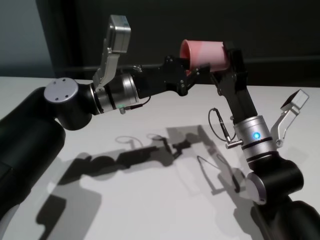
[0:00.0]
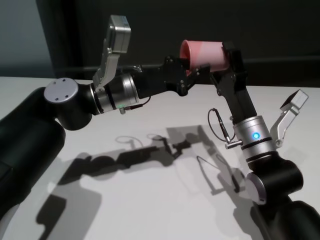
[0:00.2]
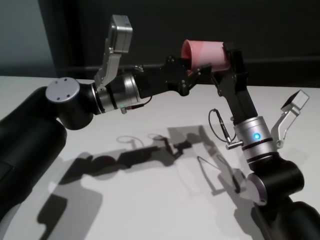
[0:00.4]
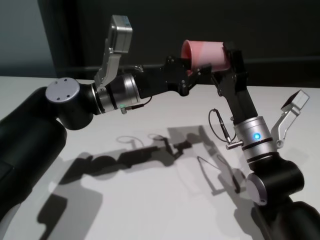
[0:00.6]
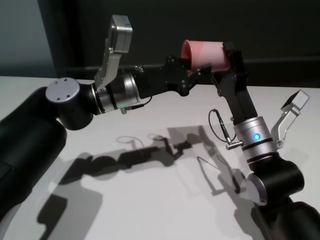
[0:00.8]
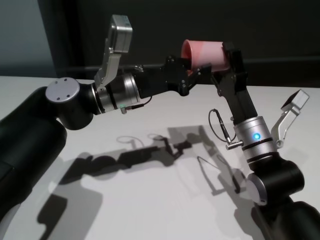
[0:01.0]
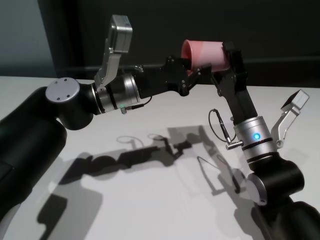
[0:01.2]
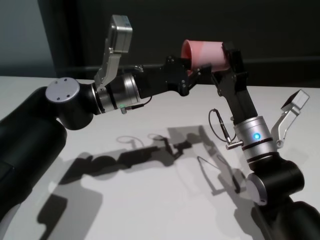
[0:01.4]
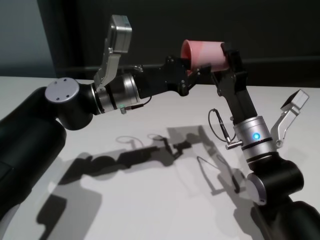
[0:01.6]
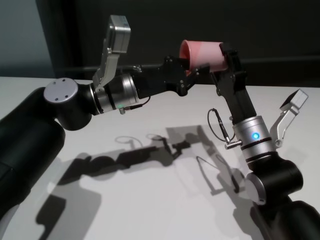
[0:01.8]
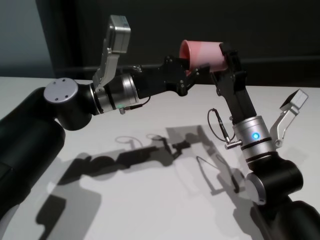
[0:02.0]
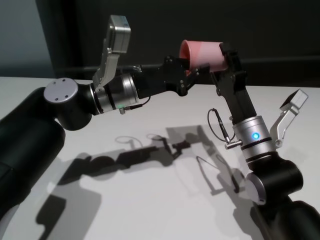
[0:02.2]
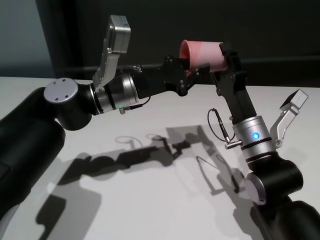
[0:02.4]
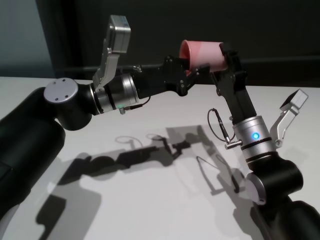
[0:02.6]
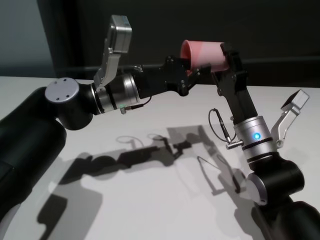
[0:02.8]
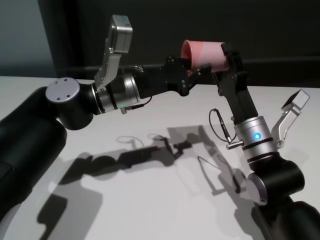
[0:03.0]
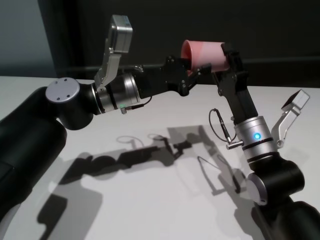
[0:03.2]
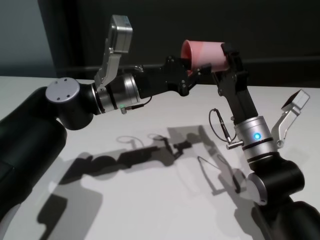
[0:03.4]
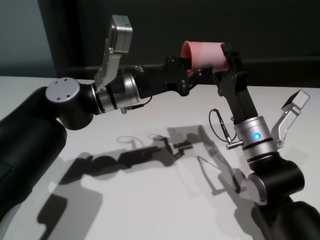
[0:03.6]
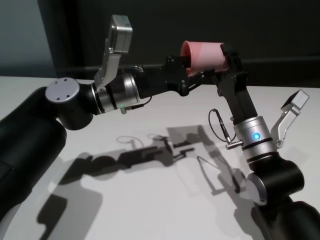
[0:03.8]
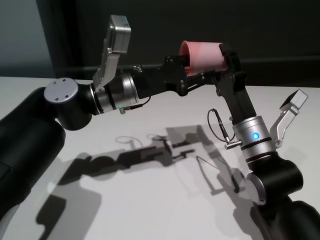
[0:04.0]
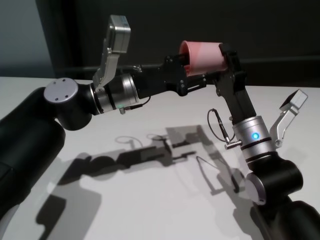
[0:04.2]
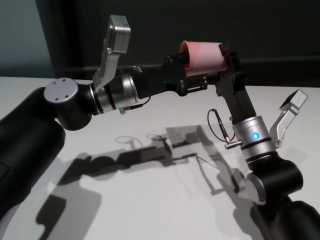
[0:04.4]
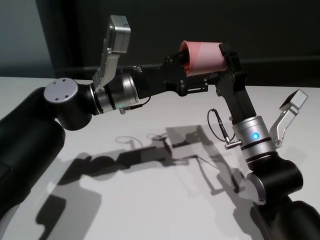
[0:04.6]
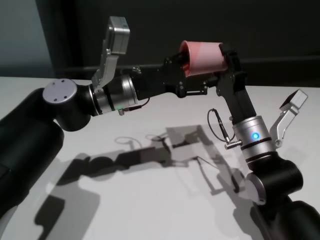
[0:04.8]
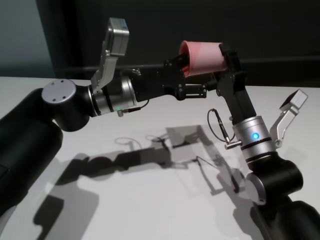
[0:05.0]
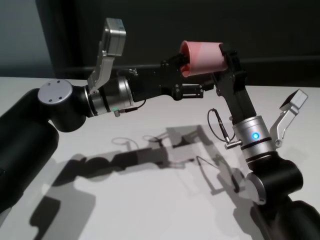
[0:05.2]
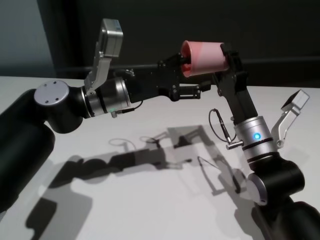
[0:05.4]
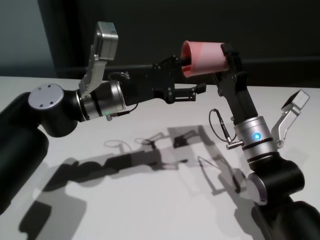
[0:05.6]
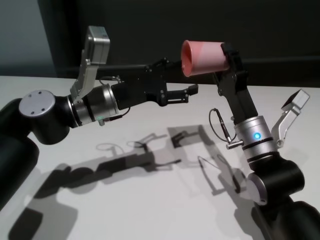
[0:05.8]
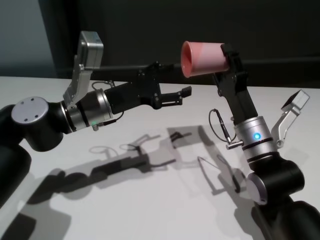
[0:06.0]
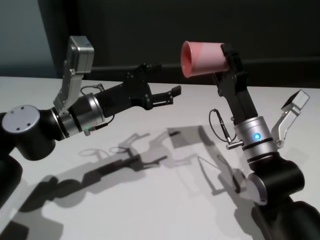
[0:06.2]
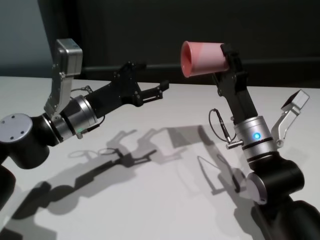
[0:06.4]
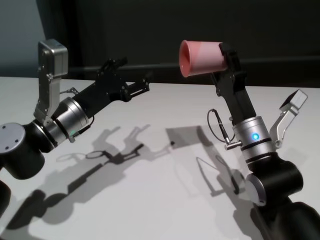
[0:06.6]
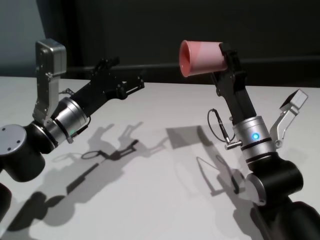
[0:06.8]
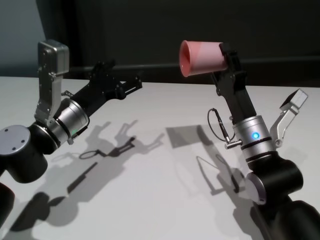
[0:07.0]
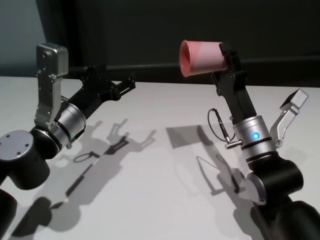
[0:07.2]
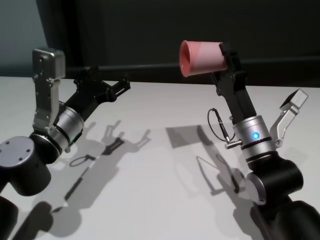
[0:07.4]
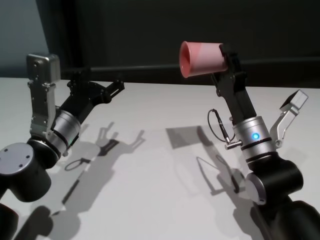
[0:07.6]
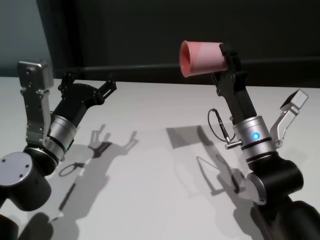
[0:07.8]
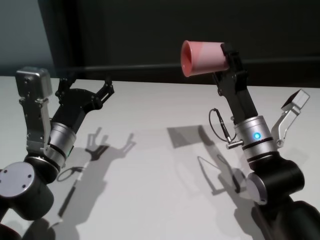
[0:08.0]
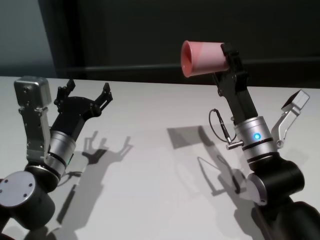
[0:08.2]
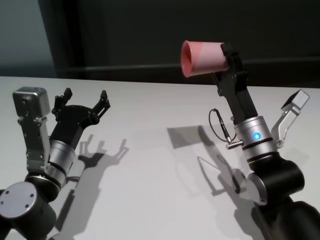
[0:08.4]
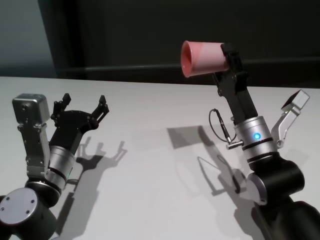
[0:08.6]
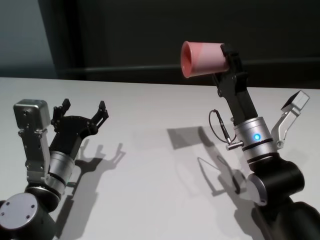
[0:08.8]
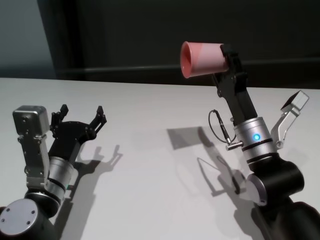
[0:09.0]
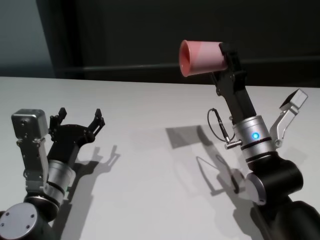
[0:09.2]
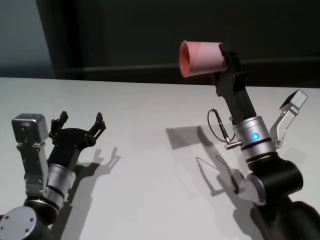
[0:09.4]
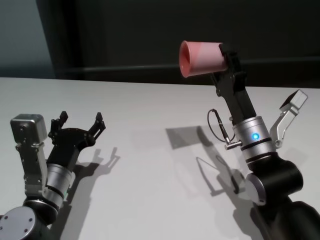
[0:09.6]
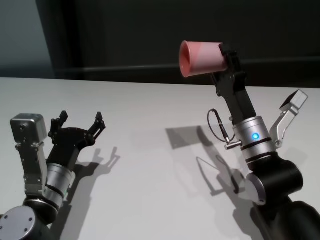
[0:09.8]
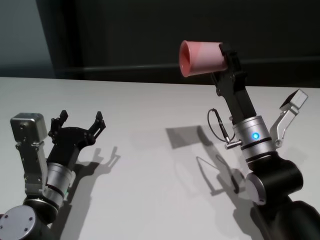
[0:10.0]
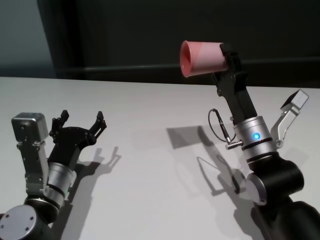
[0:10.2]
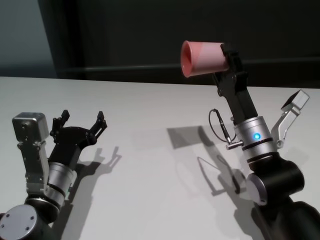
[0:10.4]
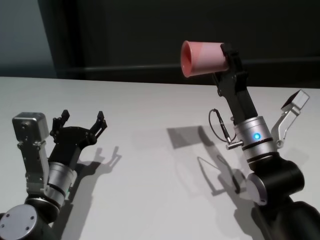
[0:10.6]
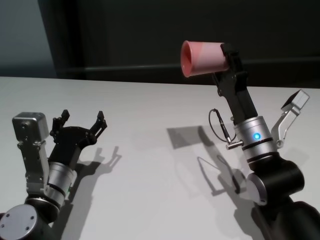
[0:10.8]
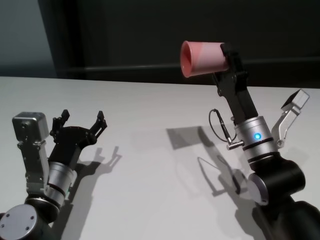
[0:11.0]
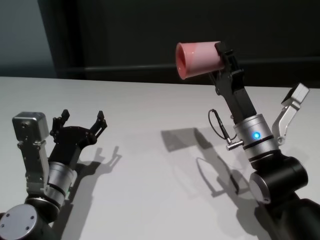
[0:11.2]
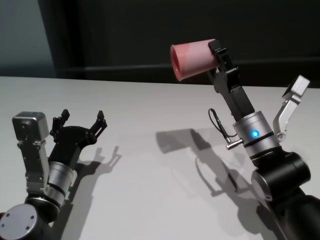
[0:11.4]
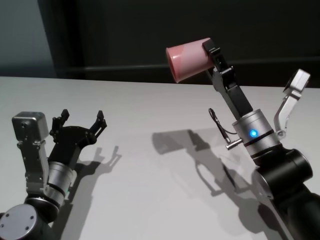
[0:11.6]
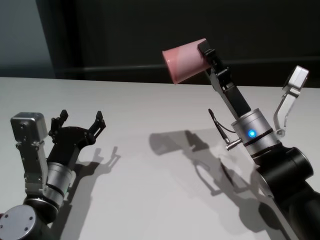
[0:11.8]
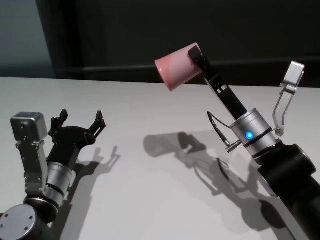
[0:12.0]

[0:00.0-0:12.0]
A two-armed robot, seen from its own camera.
Task of the whole recording: On the white table pick up the cup with one hand and transfer it to the other hand before turning it over.
Step, 0:00.0 to 0:06.0: Pass the cup to the right gripper.

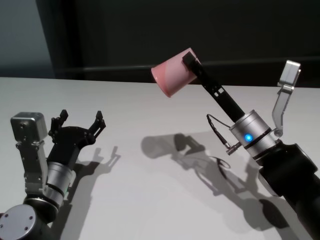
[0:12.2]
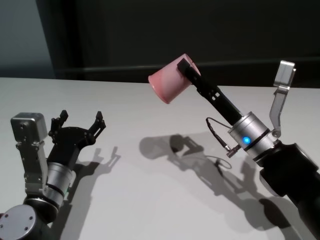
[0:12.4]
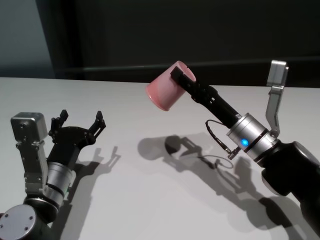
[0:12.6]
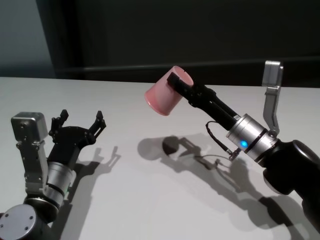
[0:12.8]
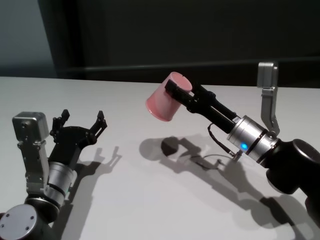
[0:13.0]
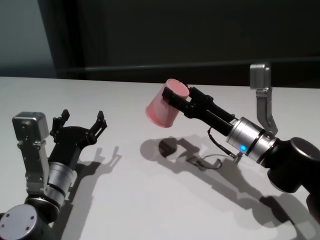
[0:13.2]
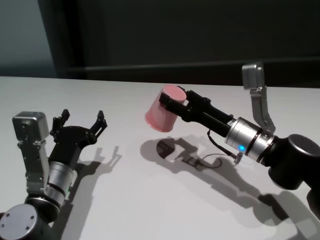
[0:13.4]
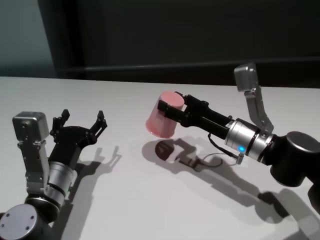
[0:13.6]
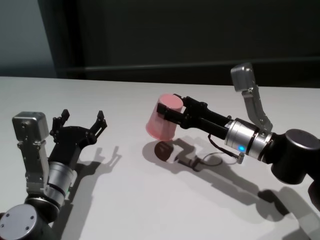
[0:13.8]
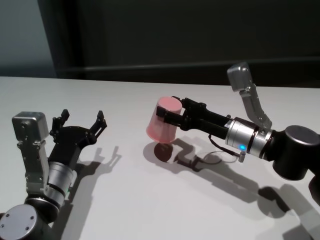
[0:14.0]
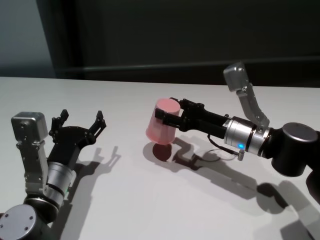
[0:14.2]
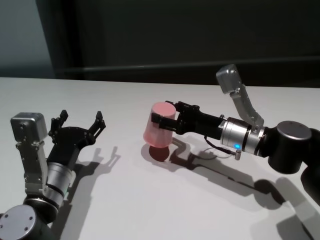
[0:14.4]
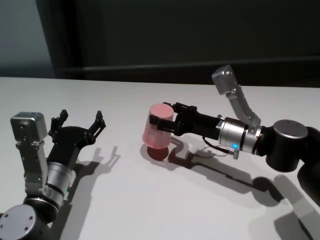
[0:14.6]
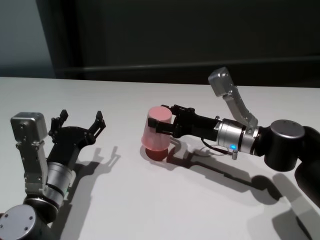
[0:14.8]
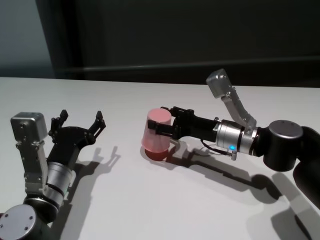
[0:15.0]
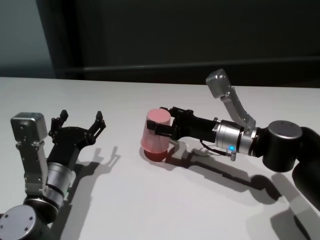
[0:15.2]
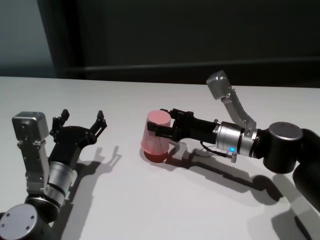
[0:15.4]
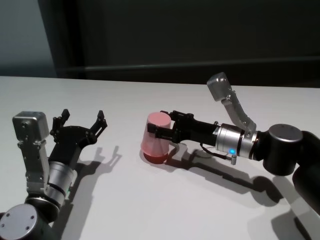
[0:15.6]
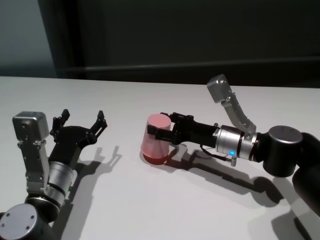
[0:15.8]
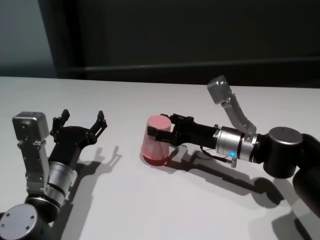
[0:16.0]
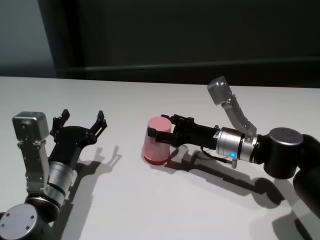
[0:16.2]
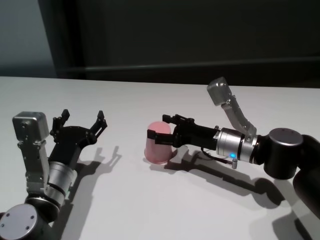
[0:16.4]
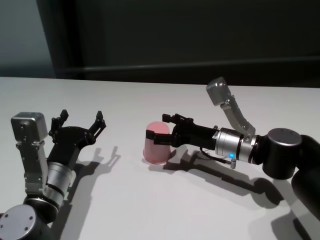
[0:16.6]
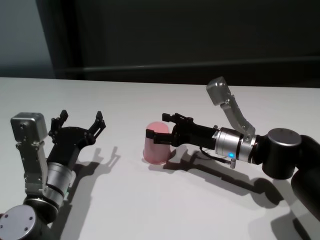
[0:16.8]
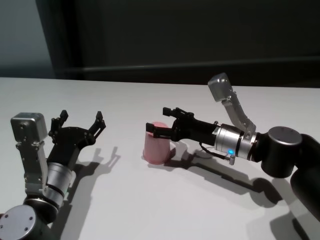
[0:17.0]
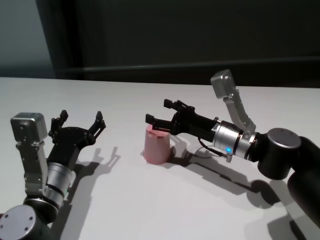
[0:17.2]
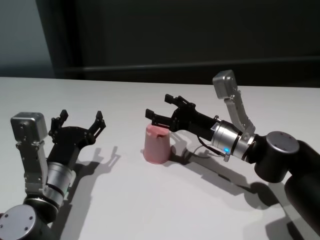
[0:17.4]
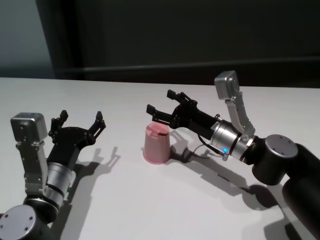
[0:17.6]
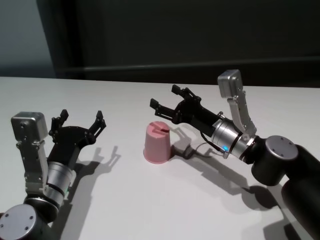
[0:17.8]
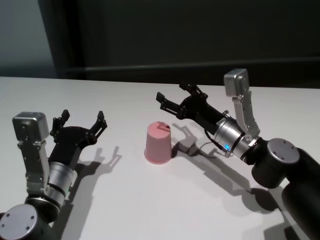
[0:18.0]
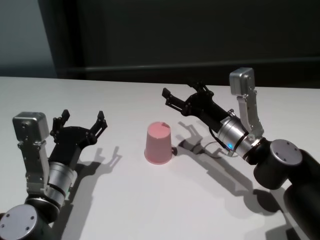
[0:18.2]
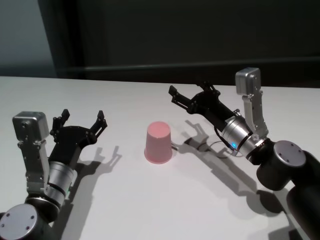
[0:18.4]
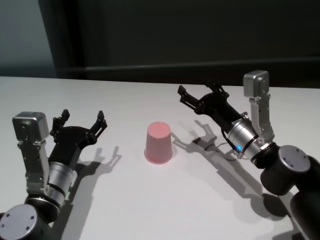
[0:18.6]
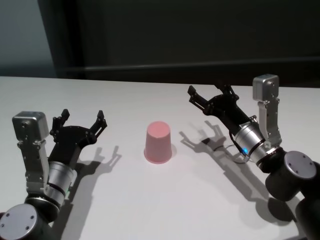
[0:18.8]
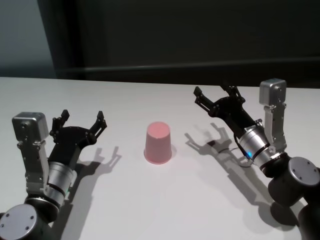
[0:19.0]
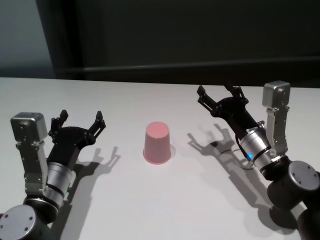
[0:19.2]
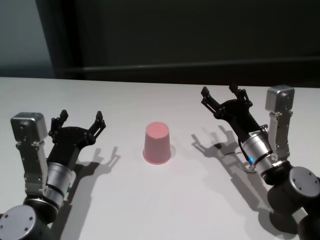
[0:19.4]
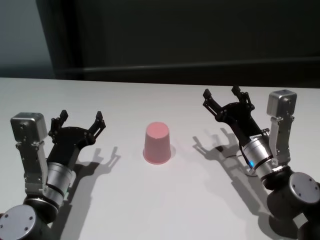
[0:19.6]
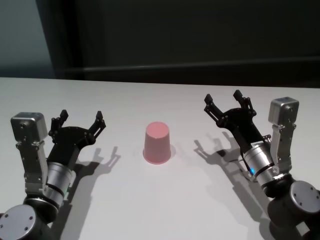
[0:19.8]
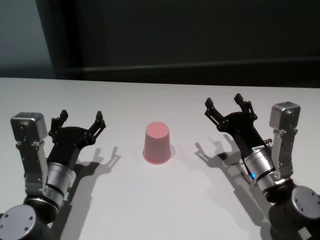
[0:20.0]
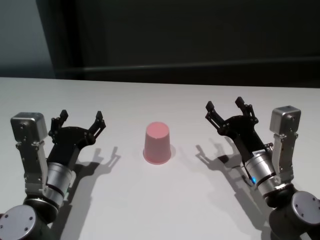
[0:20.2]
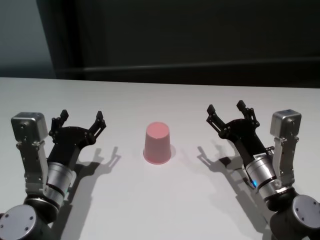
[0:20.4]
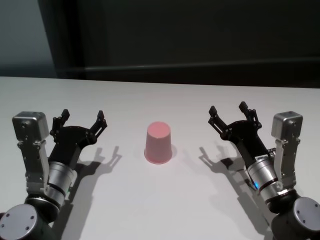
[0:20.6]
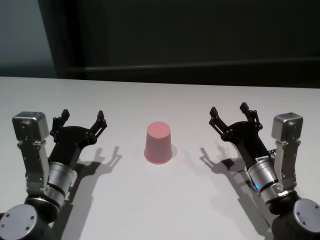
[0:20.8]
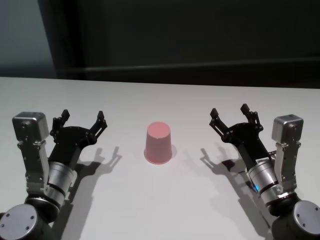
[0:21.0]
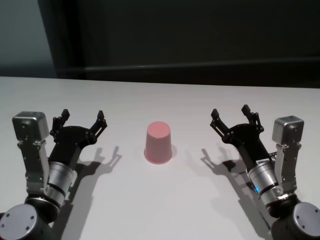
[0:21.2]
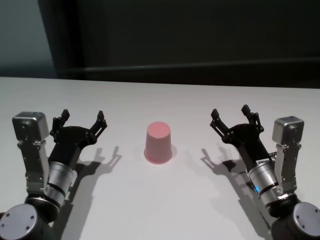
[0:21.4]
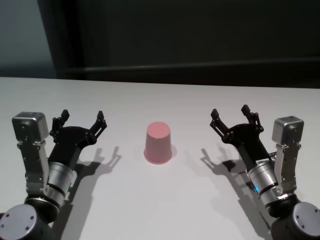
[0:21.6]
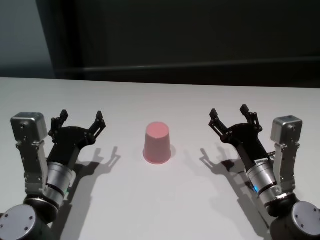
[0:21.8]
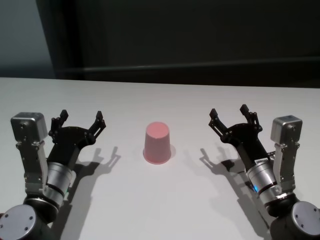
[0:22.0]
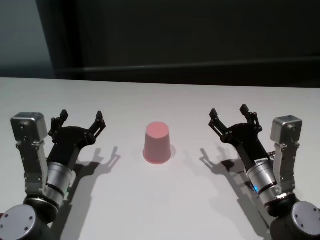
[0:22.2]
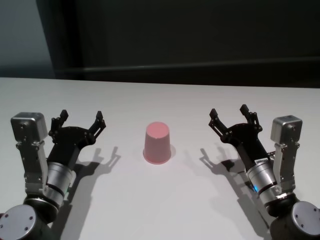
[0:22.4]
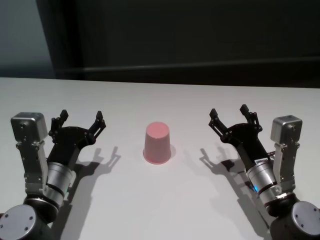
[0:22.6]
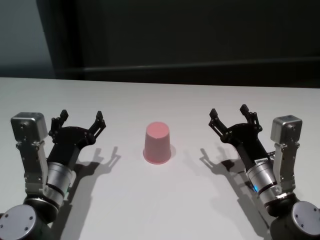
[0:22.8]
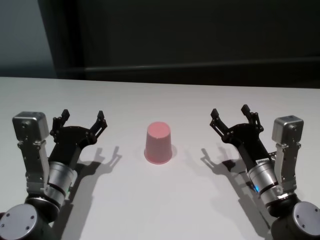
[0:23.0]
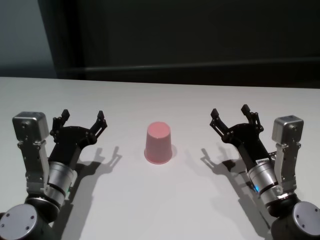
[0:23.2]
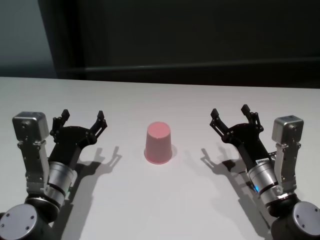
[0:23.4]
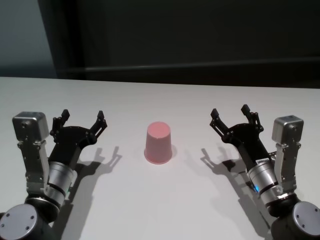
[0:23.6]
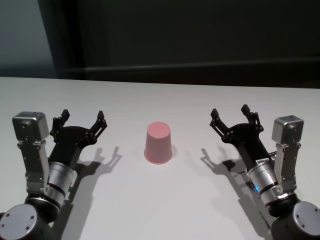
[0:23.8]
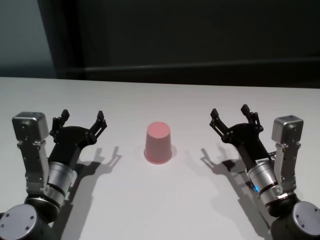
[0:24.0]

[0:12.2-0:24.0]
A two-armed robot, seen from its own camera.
Task of the whole recording: On the white table pick up the cup with one hand and transfer it to the other hand before turning it over.
Step, 0:12.2 to 0:17.0: Place the cup on the table with right gripper.
